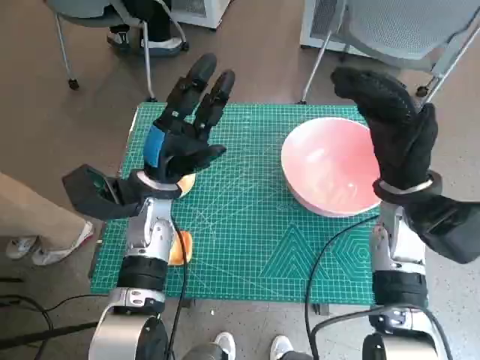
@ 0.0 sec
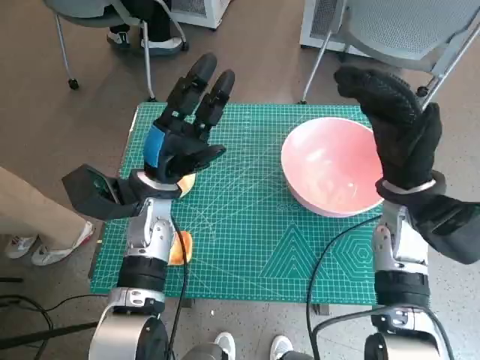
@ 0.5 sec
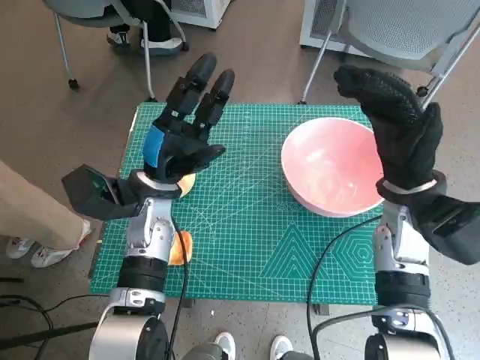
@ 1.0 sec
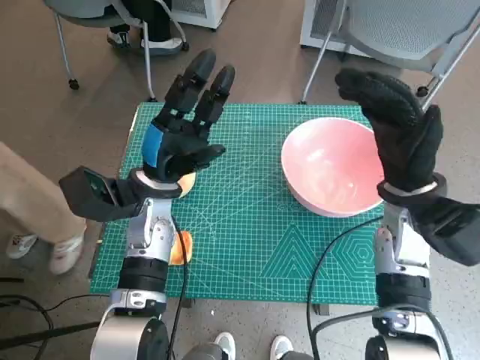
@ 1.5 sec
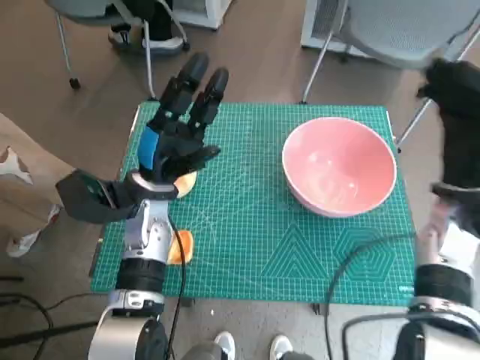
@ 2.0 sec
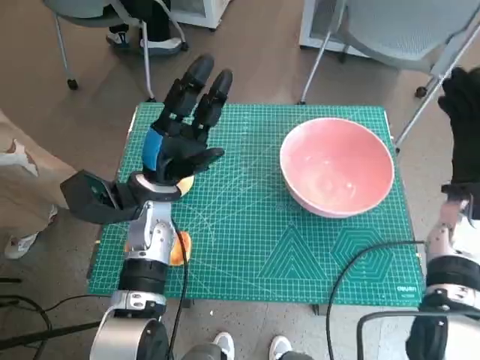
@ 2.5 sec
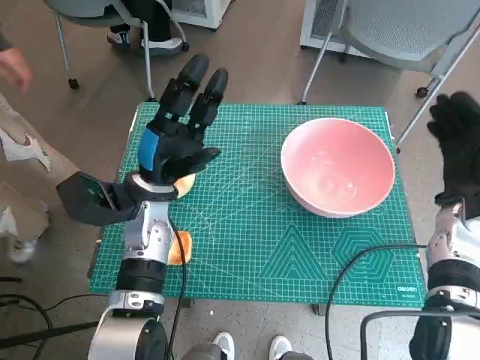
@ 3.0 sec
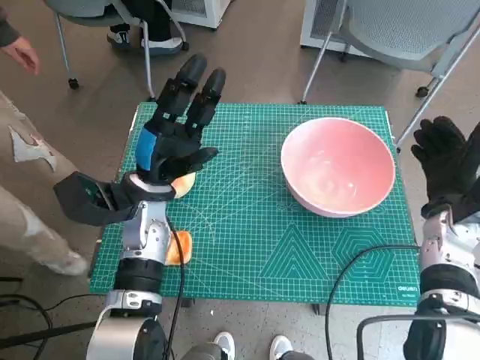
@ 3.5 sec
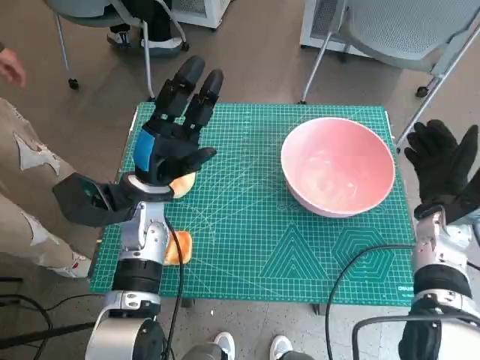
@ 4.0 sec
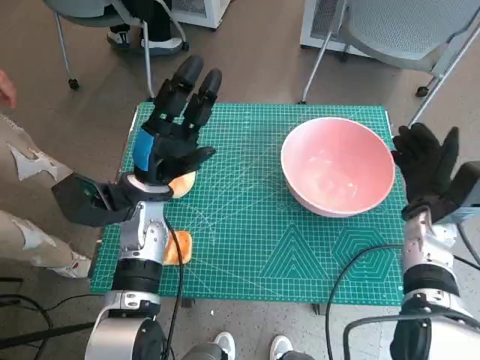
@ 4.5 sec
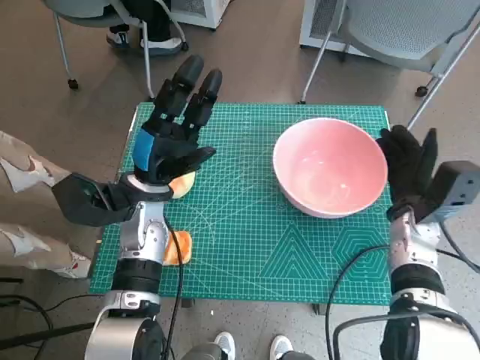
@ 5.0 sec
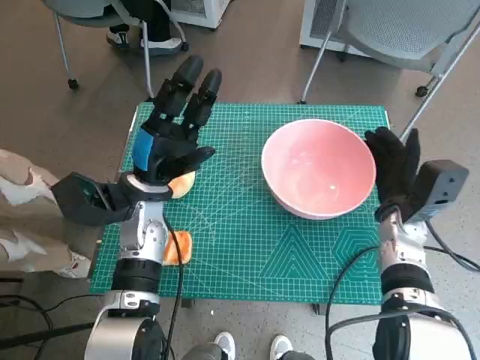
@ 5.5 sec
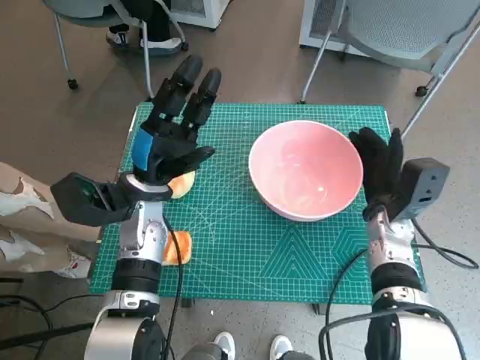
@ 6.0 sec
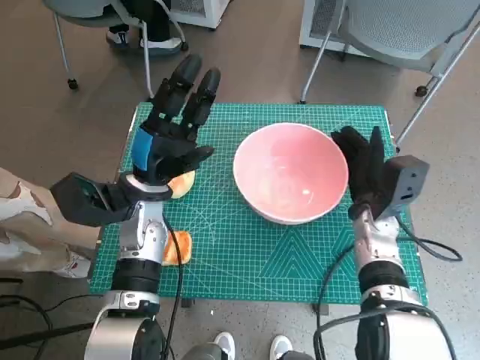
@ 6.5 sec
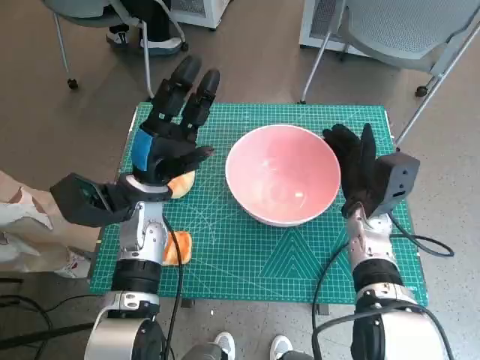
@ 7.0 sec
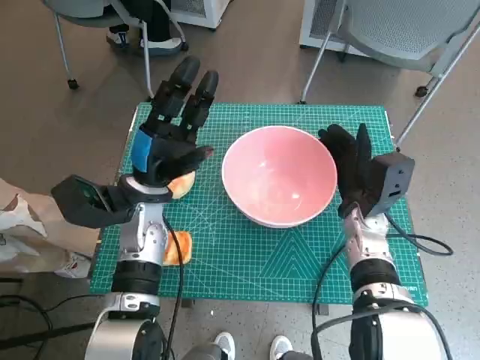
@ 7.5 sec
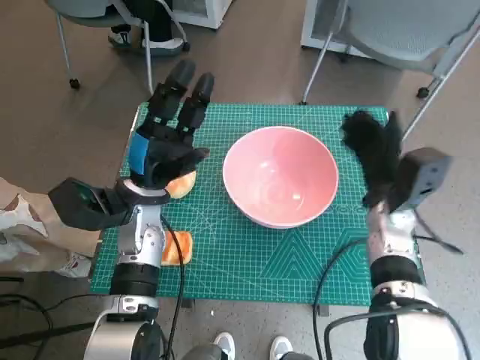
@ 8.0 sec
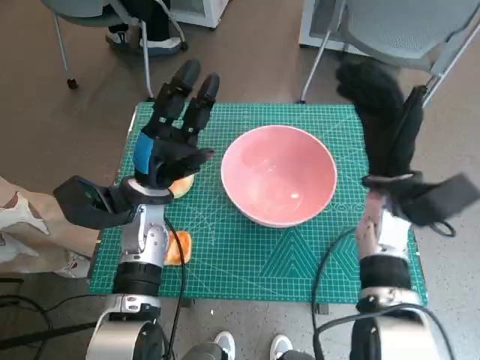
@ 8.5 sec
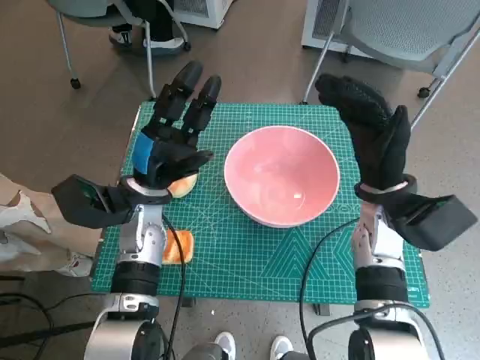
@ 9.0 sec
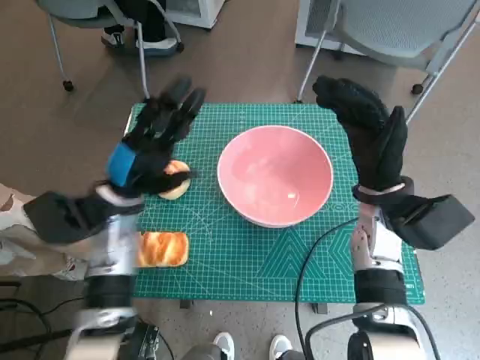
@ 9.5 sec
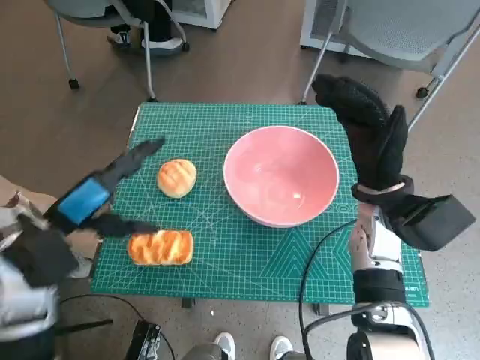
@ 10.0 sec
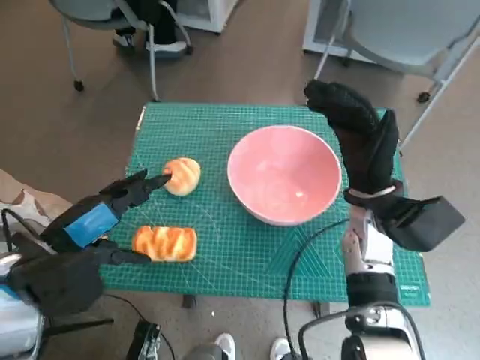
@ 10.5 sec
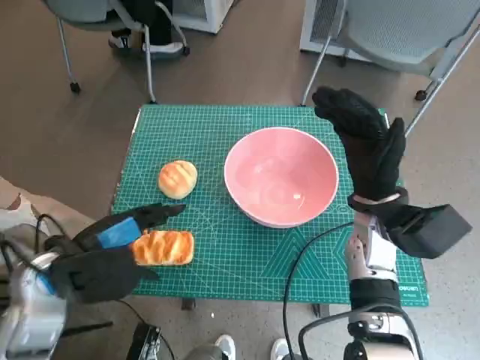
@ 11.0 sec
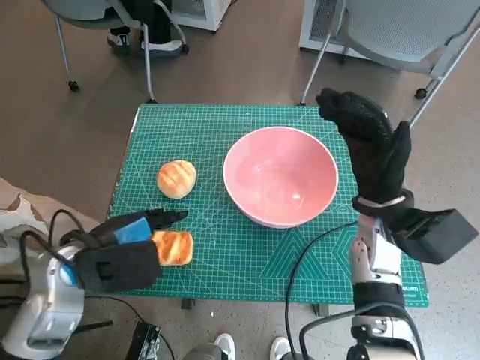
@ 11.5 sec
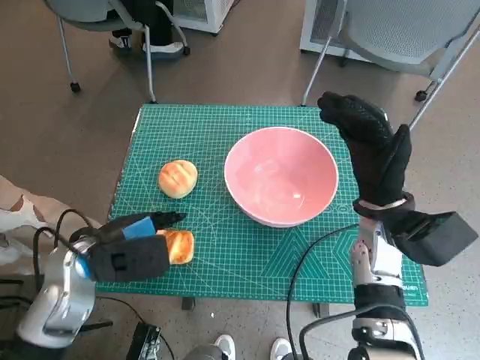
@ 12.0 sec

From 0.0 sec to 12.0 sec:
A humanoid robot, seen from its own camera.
Step, from 0.0 sec to 7.5 sec: Move the pink bowl to the center of table with right hand.
From 2.0 sec to 4.0 sec: The right hand shifts about 5 cm downward.
From 4.0 sec to 6.0 sec: The right hand travels to the left by about 5 cm.
From 8.0 sec to 10.0 sec: The right hand shifts roughly 5 cm upward. The left hand shifts roughly 10 cm to the left and backward.
From 10.0 sec to 12.0 sec: The left hand changes place by about 5 cm.

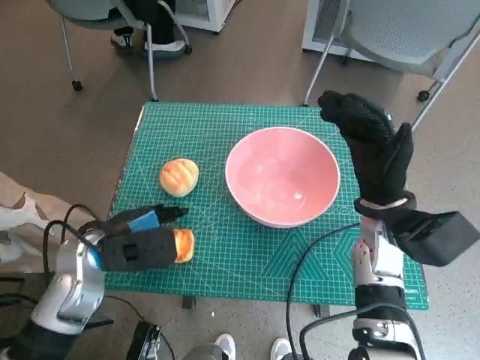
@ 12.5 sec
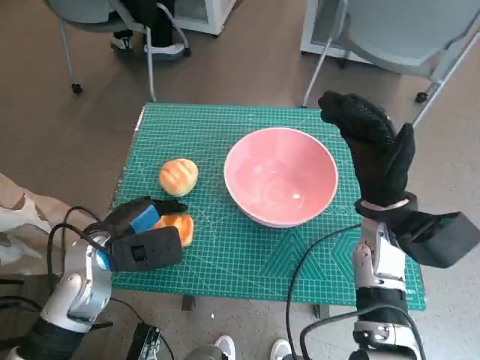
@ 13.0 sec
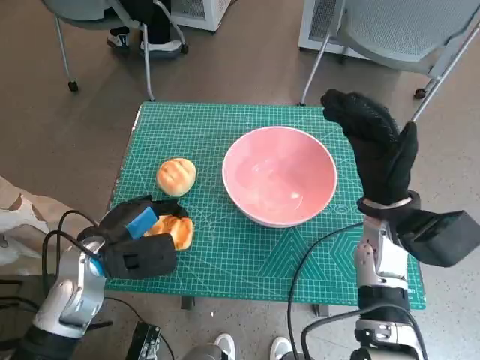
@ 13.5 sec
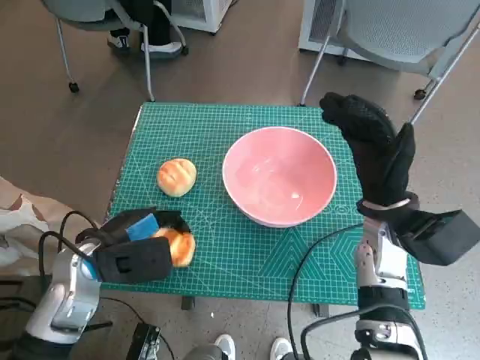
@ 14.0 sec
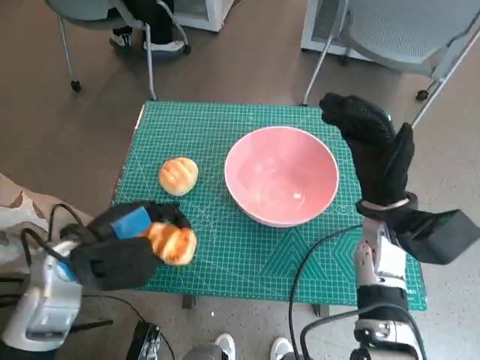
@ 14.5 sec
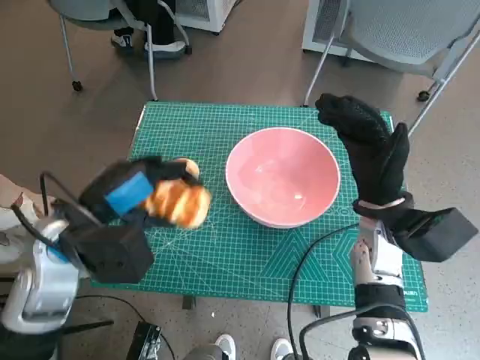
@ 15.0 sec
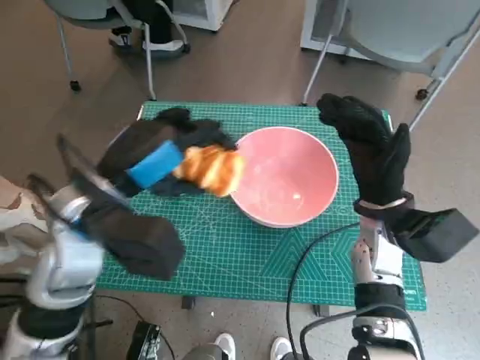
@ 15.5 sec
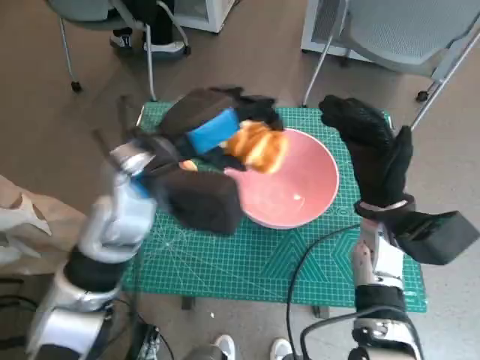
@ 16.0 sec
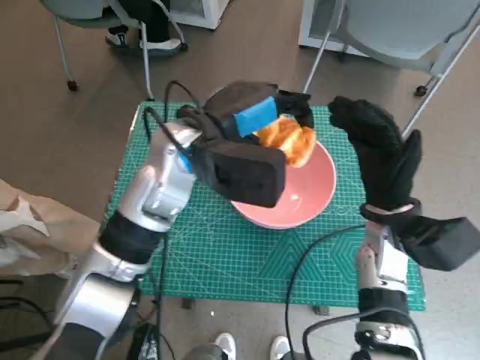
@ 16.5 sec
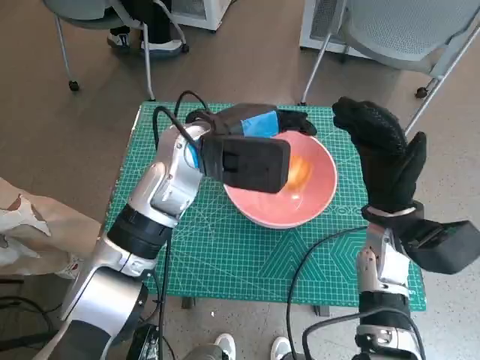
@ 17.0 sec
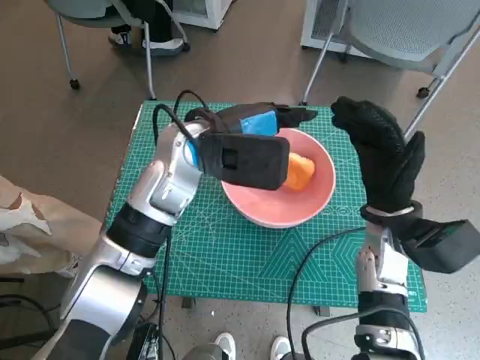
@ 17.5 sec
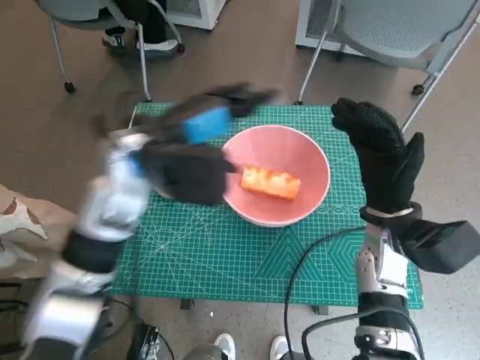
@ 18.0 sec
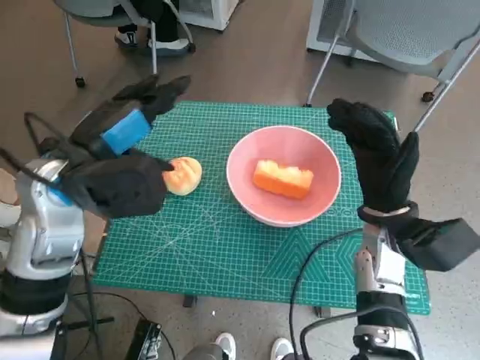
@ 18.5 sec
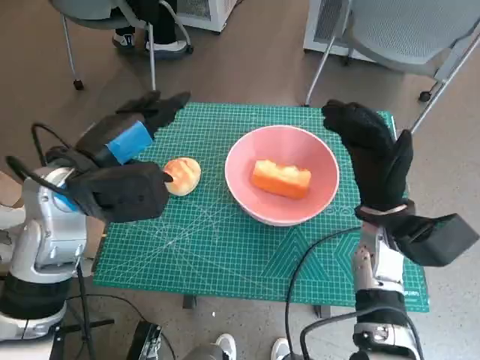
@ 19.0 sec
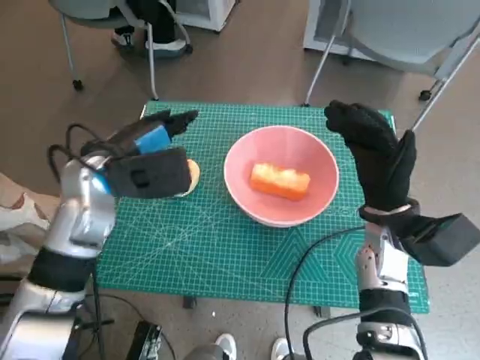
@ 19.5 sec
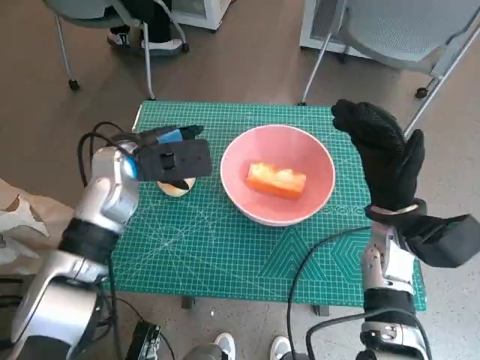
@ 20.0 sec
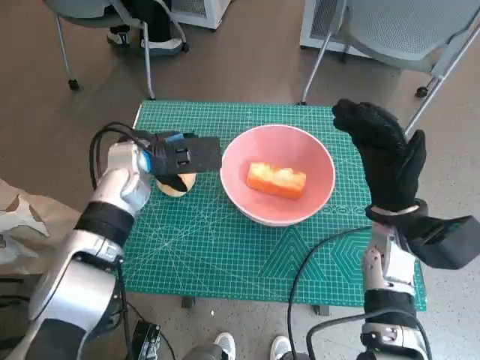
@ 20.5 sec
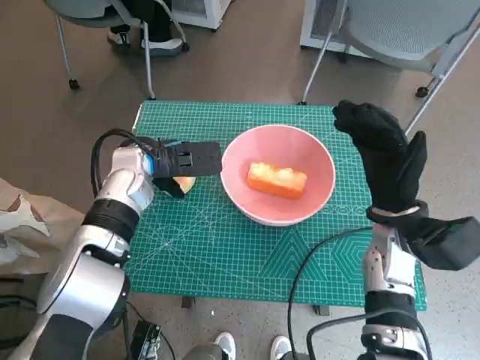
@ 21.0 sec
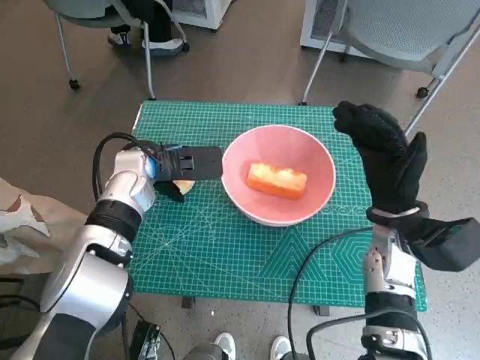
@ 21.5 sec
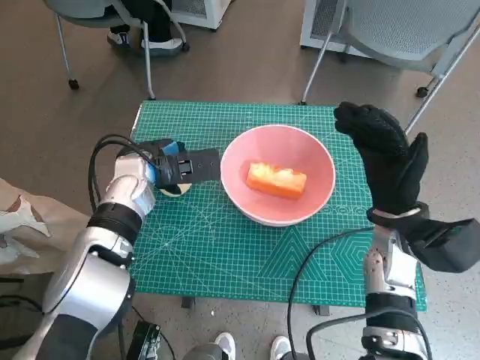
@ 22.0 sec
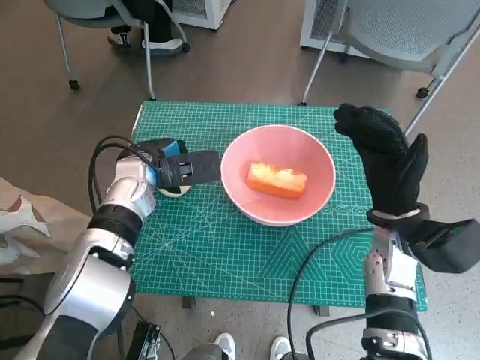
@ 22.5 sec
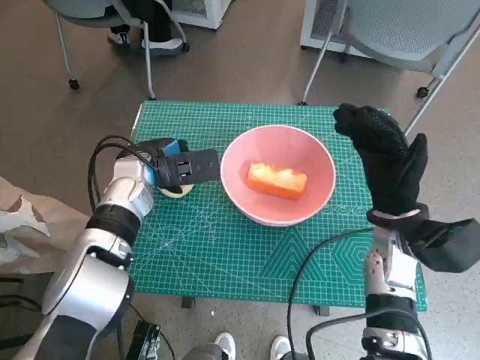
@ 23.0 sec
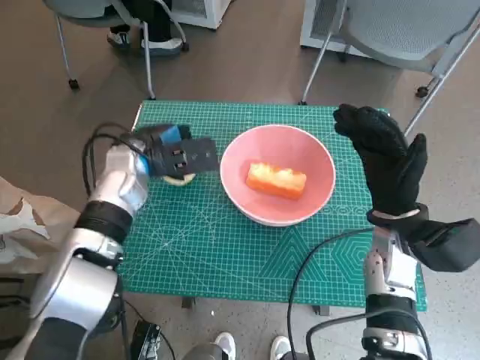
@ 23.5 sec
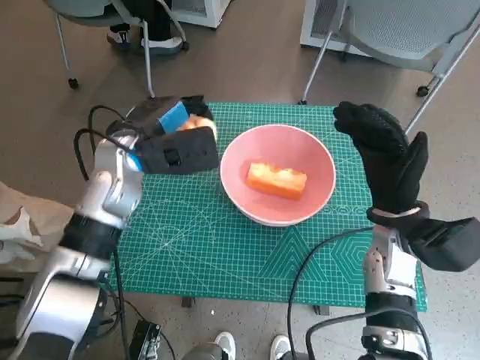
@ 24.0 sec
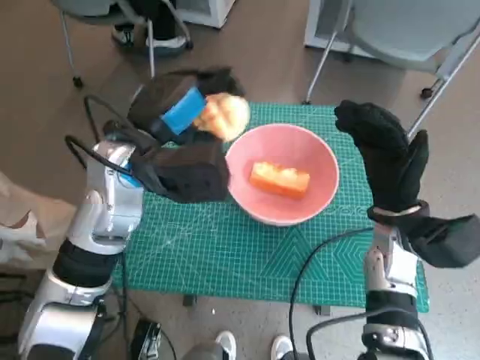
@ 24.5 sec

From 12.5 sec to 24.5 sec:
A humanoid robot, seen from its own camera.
Step, from 13.5 sec to 17.5 sec: Place the long bread in pink bowl with left hand.
Step, from 18.0 sec to 22.0 sec: Grasp the round bread with left hand.
From 12.5 sec to 14.5 sec: There are only small adjustments of the hands.
From 14.5 sec to 16.5 sec: The left hand is displaced to the right, forward and upward by approximately 20 cm.
From 16.5 sec to 18.5 sec: The left hand is displaced to the left by about 10 cm.
From 18.5 sec to 20.5 sec: The left hand travels forward and downward by some 10 cm.
From 20.5 sec to 22.5 sec: The hands stay close to where they were, moving slightly.
From 22.5 sec to 24.5 sec: The left hand goes roughly 10 cm upward and backward.

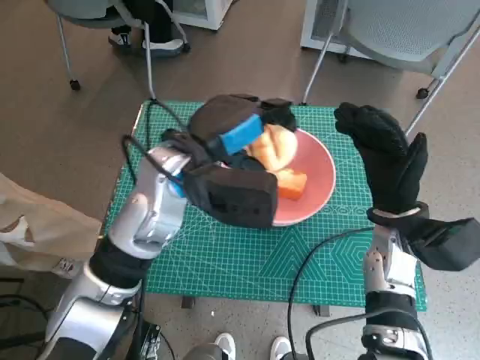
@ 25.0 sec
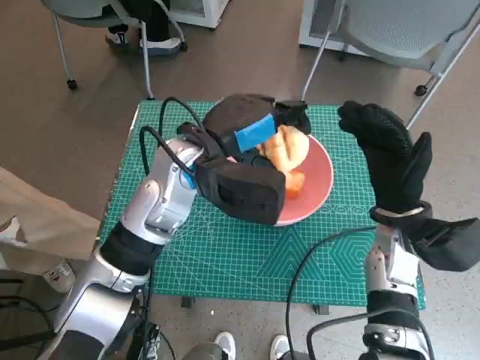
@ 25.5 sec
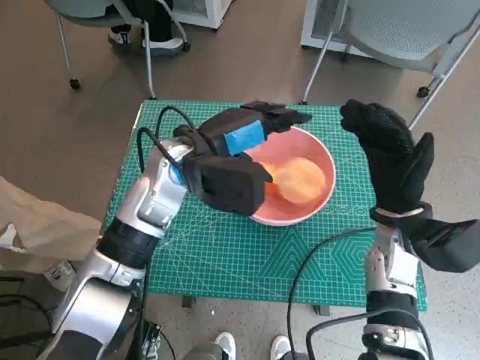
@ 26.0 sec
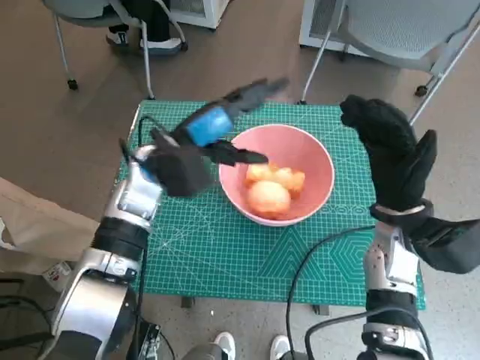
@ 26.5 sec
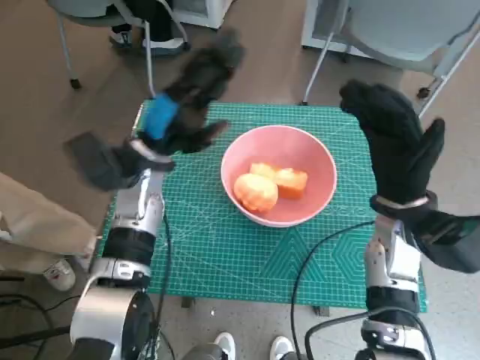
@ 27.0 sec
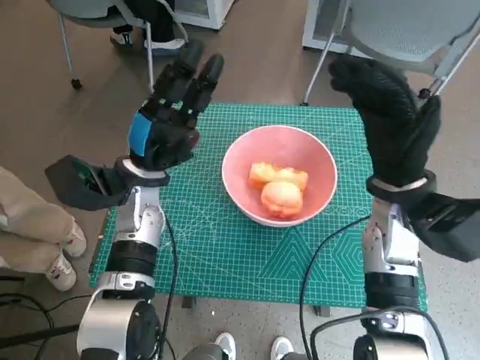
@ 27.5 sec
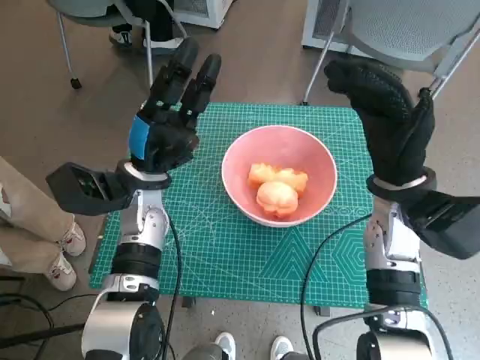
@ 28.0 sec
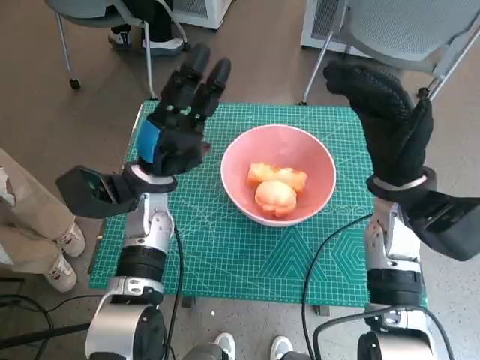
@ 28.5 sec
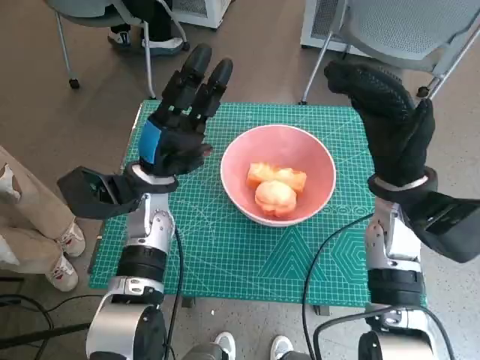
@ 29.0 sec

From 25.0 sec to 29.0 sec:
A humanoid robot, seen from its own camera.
From 25.0 sec to 27.0 sec: The left hand moves to the left and downward, roughly 10 cm.
